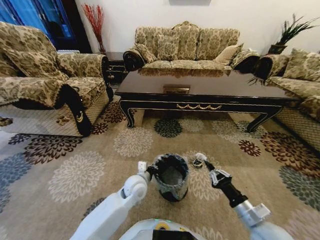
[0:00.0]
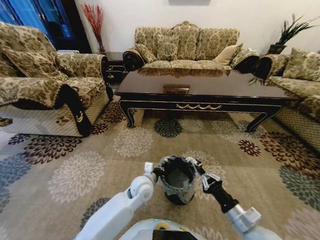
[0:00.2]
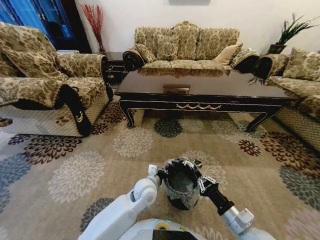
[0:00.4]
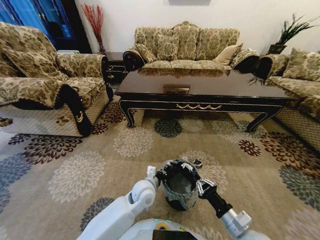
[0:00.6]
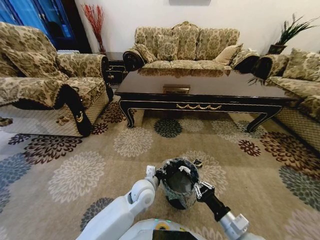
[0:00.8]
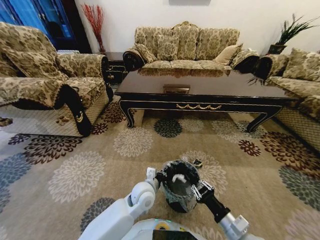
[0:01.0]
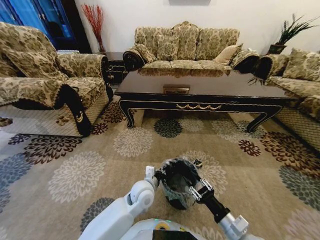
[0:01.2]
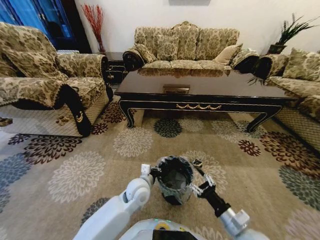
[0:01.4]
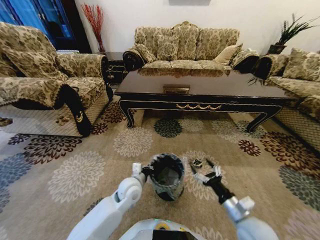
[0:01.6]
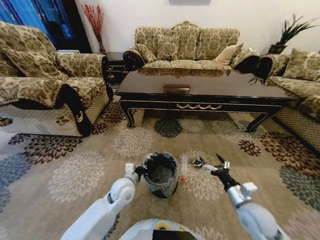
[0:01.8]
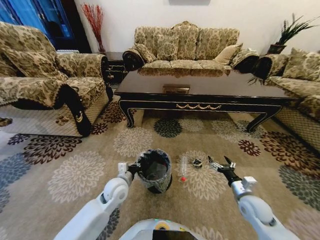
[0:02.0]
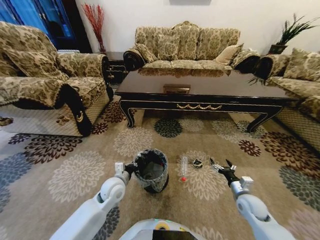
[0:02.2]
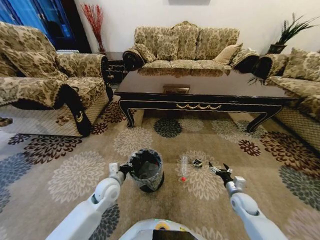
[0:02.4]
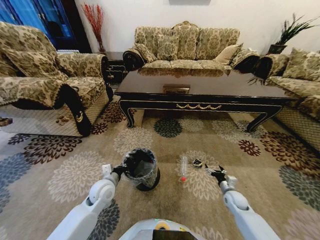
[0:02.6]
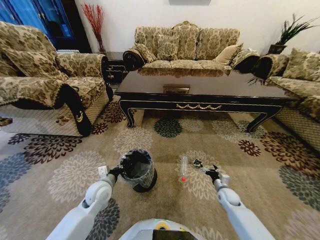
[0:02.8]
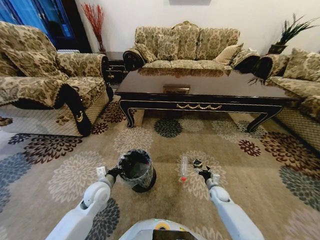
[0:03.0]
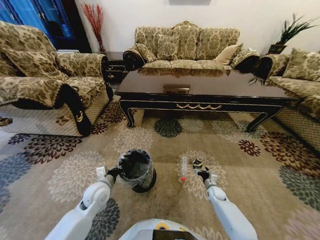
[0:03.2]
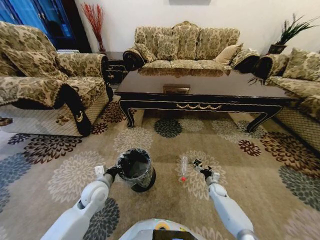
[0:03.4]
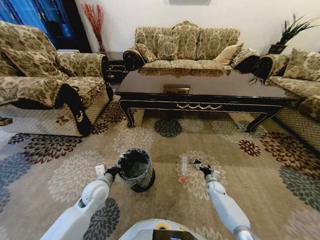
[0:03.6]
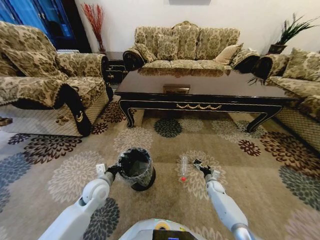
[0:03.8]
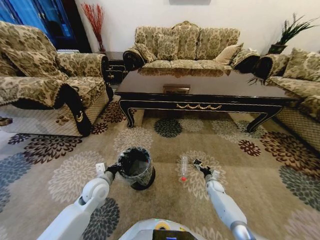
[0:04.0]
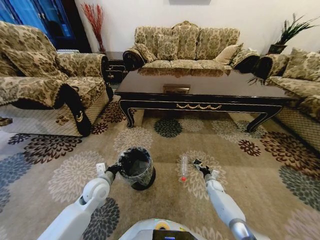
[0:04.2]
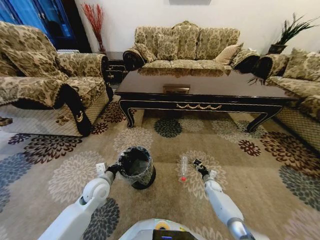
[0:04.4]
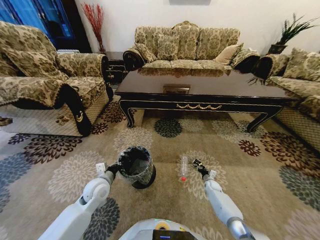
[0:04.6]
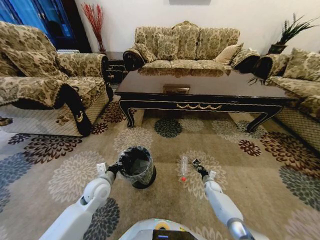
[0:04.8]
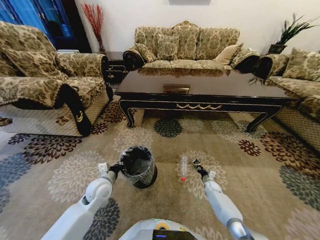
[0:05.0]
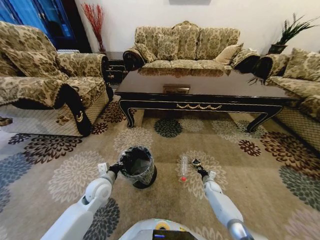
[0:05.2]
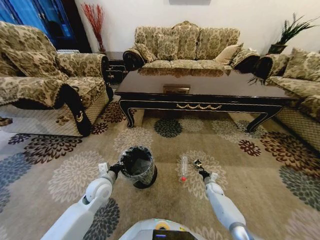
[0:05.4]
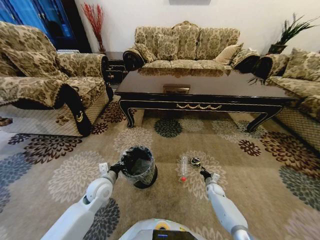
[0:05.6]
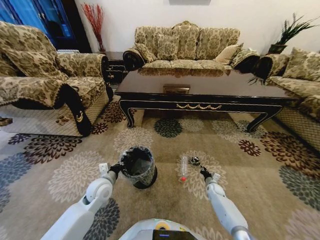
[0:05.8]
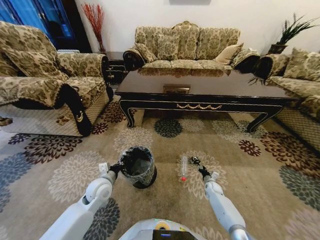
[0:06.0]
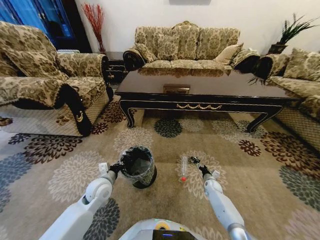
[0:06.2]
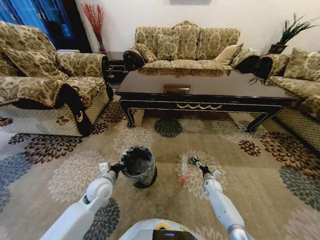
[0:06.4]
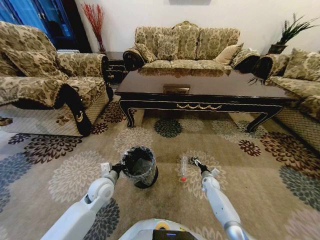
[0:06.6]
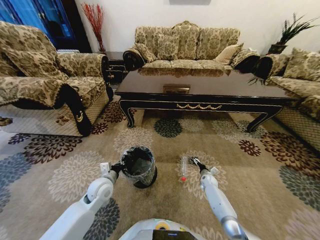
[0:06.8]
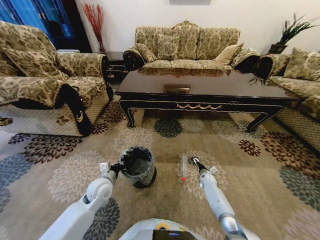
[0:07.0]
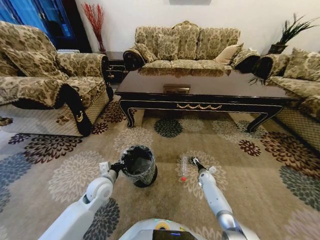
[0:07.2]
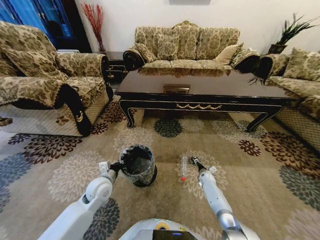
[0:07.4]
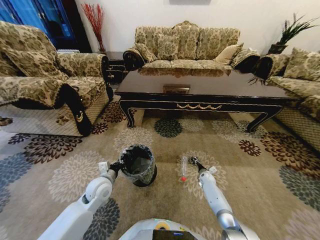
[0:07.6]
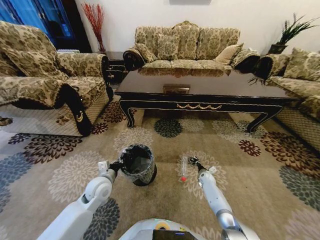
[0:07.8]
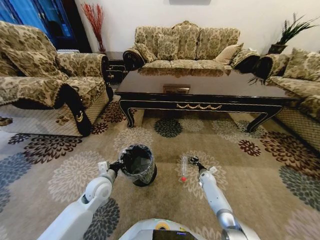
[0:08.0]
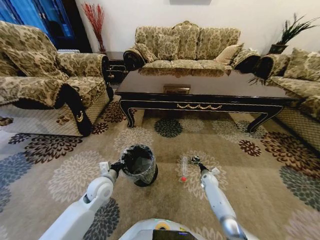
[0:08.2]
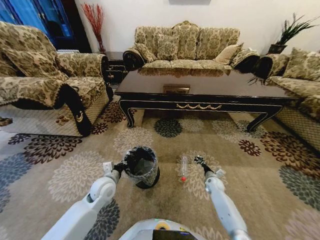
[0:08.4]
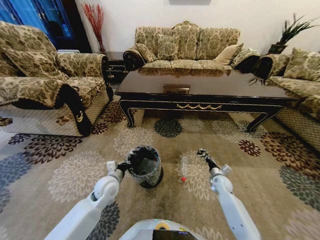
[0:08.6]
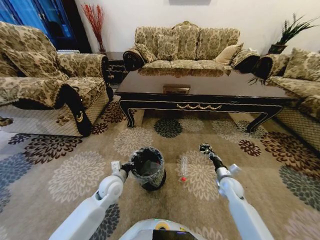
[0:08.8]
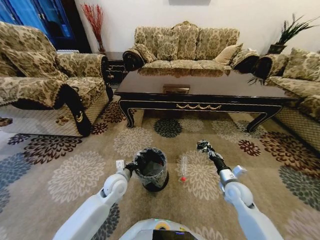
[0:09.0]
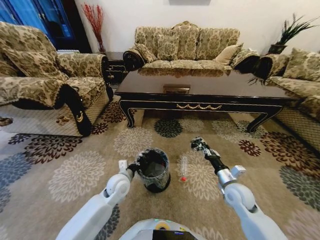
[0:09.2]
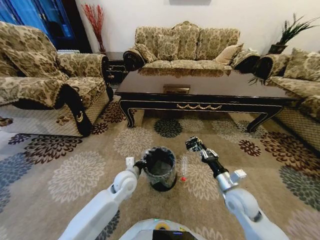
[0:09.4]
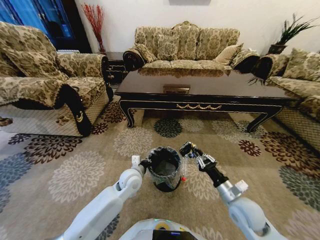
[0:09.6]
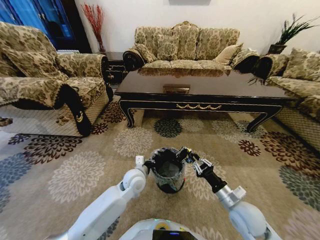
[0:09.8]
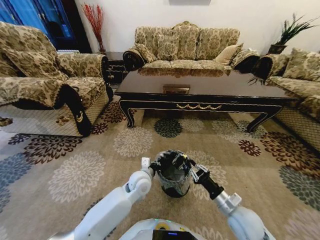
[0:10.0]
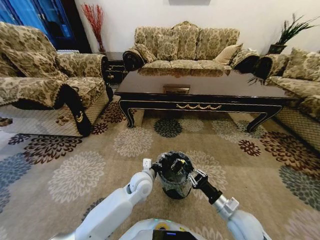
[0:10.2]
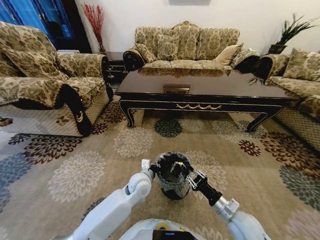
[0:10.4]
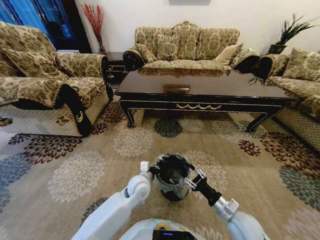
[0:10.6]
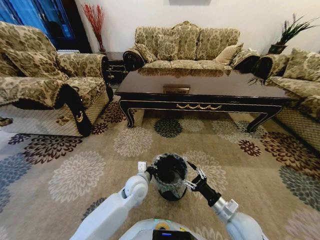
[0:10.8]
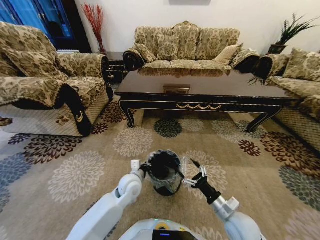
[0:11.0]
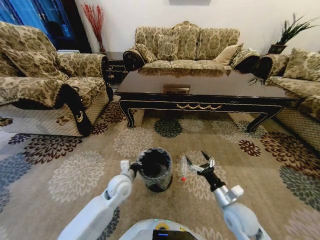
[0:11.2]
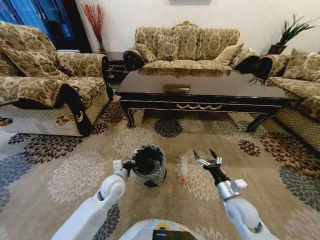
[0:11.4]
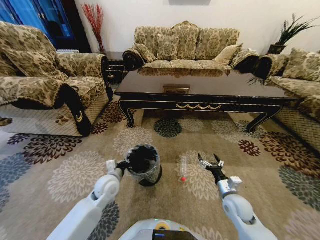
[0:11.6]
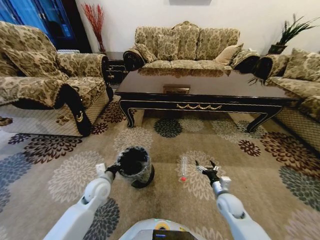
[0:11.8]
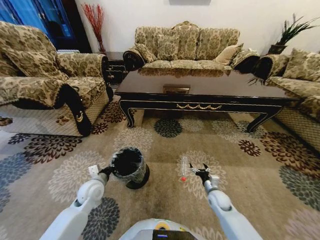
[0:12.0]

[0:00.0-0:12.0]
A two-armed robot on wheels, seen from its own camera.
Task of the whole recording: Move to the front of the table and pick up the trash from the floor, then place it into the trash bin.
0:00.0 to 0:01.6: The right gripper opens its fingers.
0:01.6 to 0:03.0: The left gripper goes approximately 15 cm to the left; the right gripper travels downward and forward by about 30 cm.
0:03.0 to 0:04.4: The right gripper is displaced forward and downward by about 10 cm, and closes its fingers.
0:04.4 to 0:06.0: The right gripper closes and opens again.
0:06.0 to 0:07.6: The right gripper heads forward, covering about 5 cm, and opens and closes again.
0:07.6 to 0:09.0: The left gripper moves to the right, approximately 5 cm, while the right gripper shifts some 25 cm upward and backward, and closes.
0:09.0 to 0:10.4: The right gripper shifts about 10 cm backward. The left gripper shifts some 10 cm to the right.
0:10.4 to 0:12.0: The left gripper goes about 20 cm to the left; the right gripper goes some 15 cm downward and forward, and opens up.

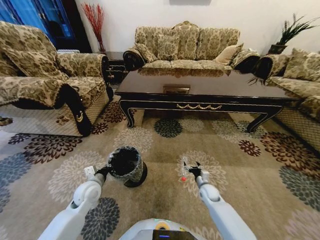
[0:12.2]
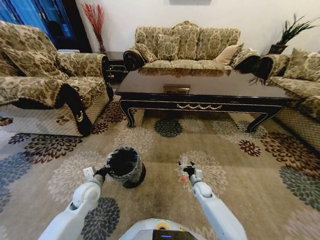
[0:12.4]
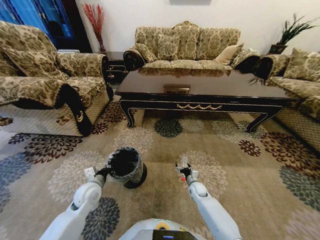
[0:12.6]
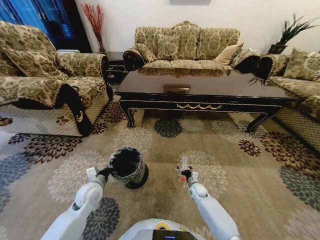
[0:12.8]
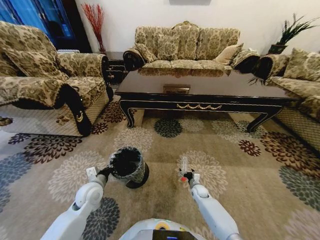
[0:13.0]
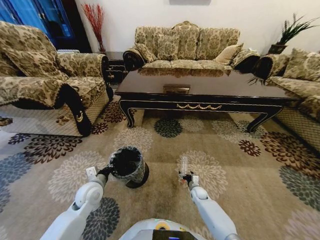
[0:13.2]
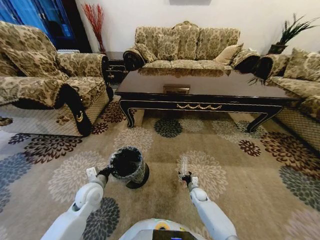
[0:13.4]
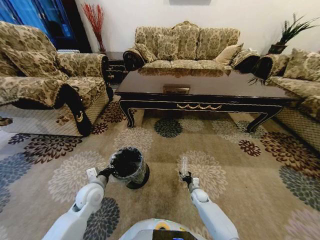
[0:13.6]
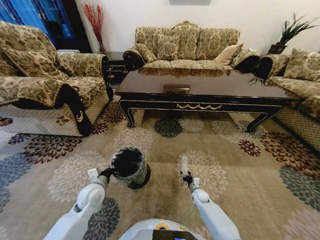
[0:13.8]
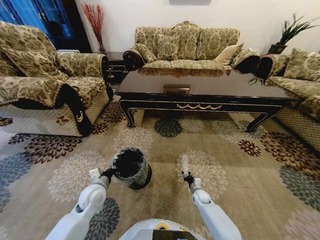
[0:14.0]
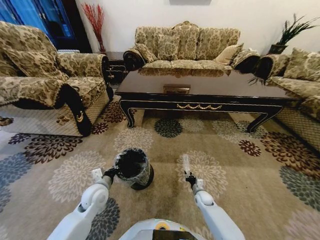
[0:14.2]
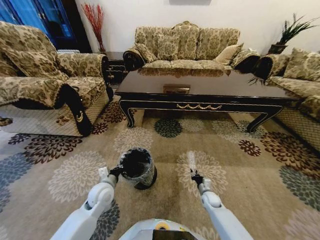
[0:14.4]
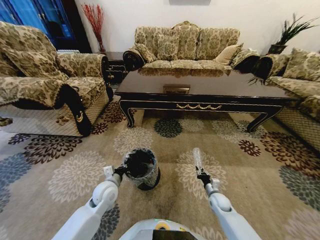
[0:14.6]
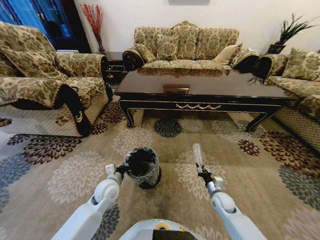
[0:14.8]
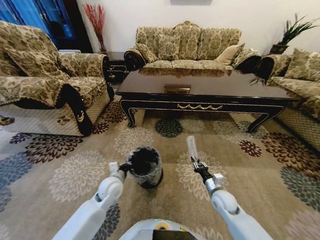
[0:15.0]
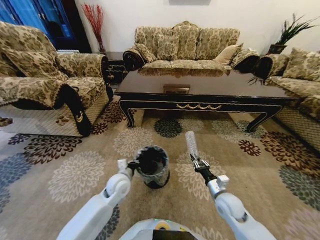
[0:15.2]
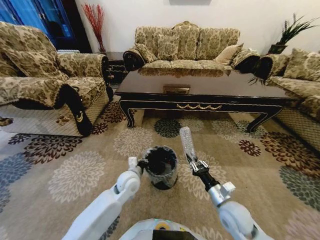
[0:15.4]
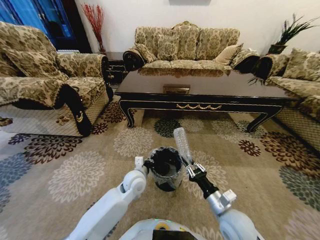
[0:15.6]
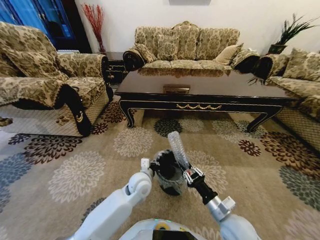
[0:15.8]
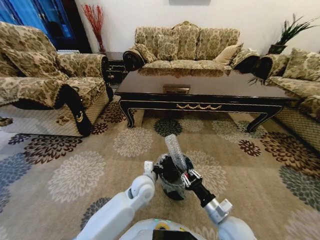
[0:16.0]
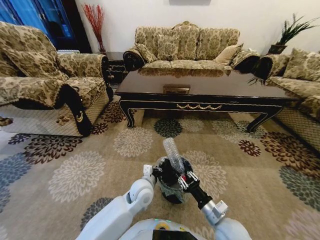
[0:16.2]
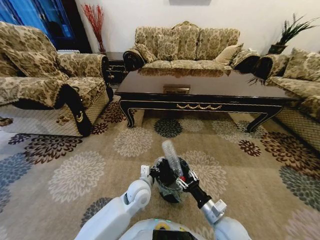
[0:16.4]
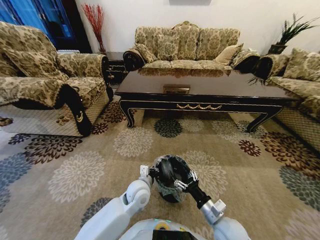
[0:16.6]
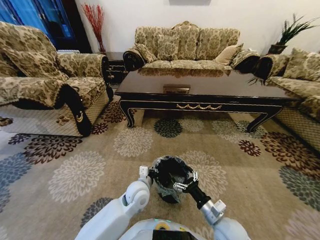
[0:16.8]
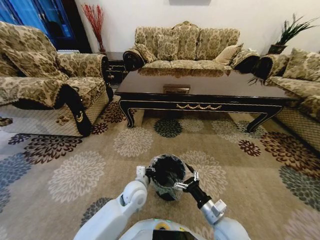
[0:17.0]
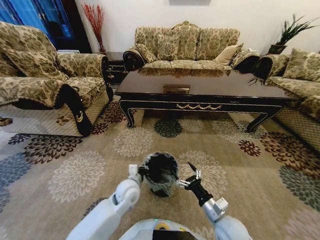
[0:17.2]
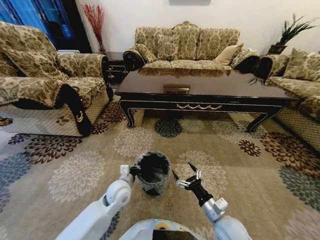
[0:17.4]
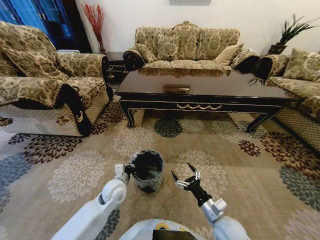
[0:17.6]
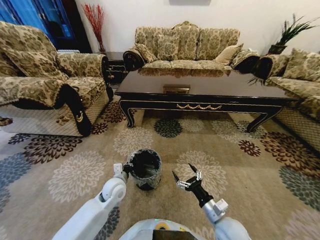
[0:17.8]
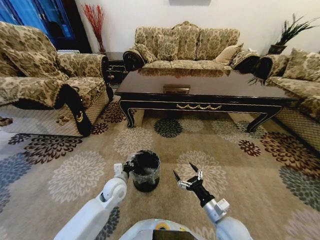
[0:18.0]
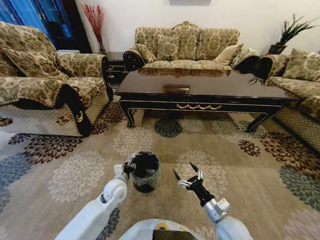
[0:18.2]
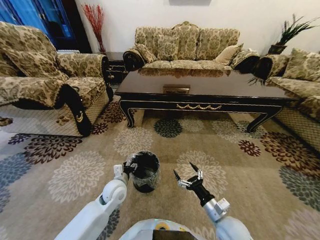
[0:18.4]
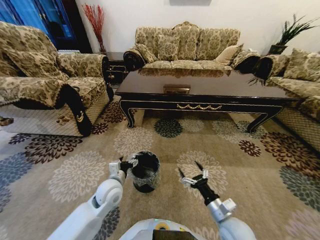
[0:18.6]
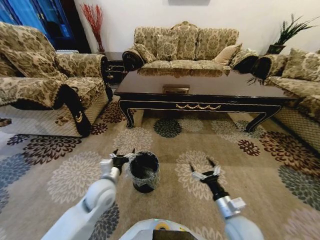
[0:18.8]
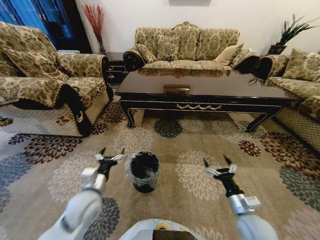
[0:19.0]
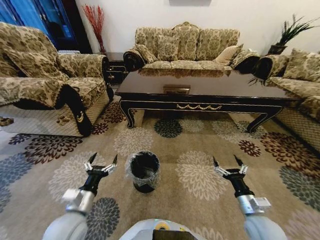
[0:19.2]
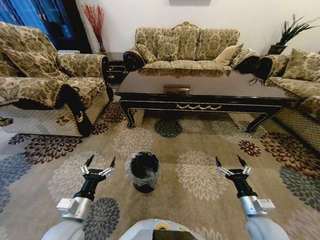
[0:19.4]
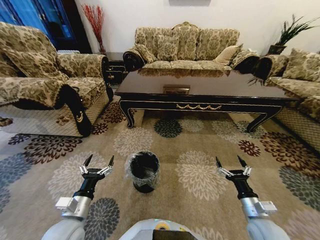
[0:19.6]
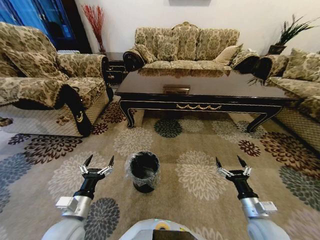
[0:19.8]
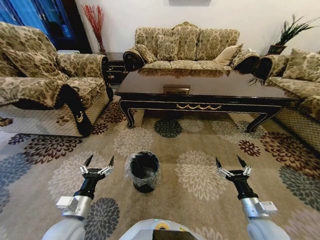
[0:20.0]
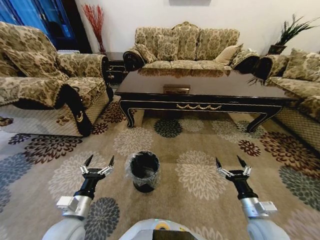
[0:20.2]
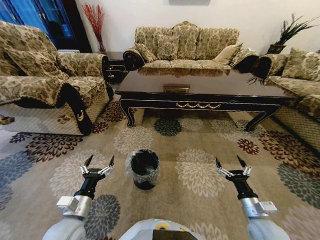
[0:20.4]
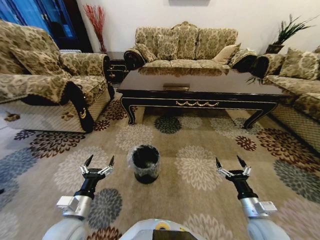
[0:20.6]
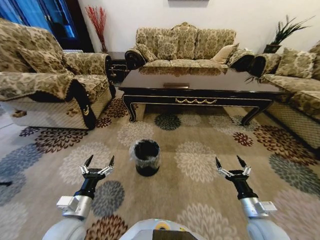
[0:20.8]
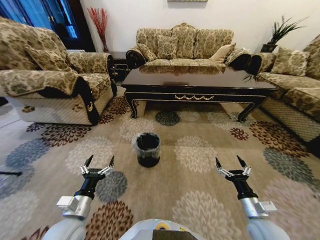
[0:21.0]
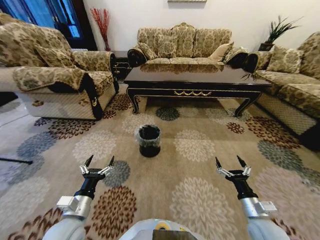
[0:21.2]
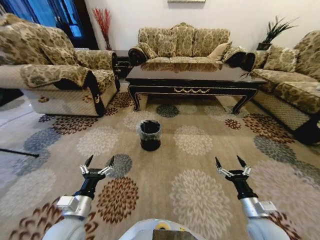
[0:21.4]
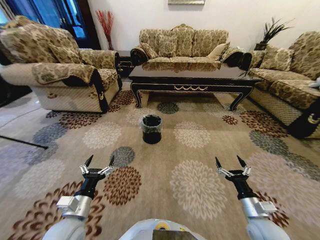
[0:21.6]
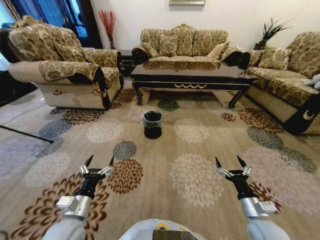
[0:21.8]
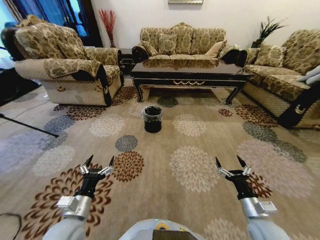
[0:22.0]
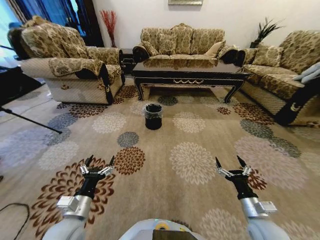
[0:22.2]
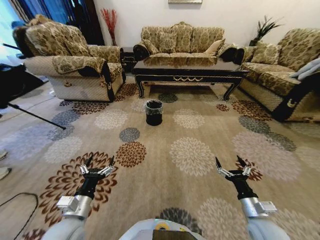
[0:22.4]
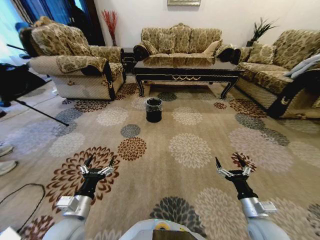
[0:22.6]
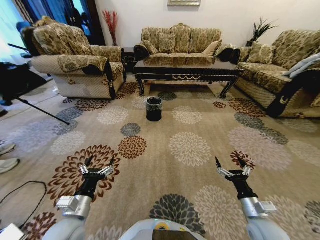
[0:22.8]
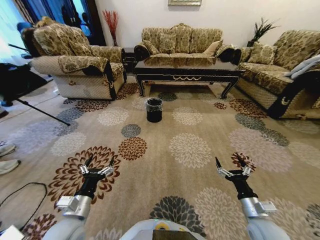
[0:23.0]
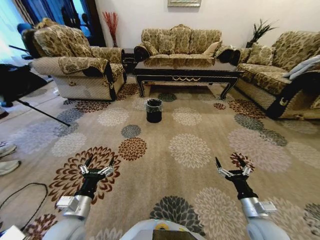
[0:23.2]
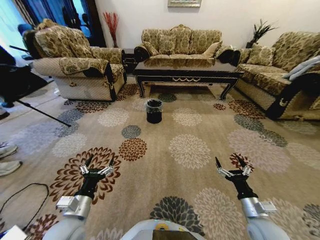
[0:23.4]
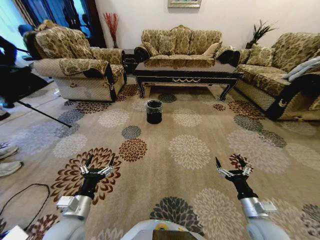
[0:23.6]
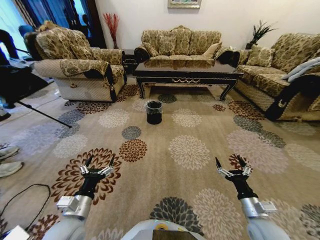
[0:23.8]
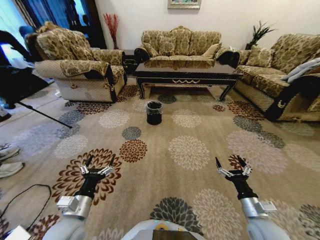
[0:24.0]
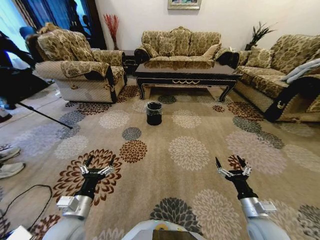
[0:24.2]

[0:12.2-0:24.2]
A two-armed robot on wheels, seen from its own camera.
Task of the whole recording: Move to the front of the table and pick up the trash from the floor, then place it into the trash bin.
0:12.2 to 0:13.8: The right gripper shifts about 10 cm downward, and closes up.
0:13.8 to 0:15.2: The right gripper moves upward and backward, some 25 cm, and closes its fingers, while the left gripper travels to the right by some 10 cm.
0:15.2 to 0:16.6: The left gripper moves to the right, roughly 10 cm, while the right gripper moves backward, about 10 cm, and opens.
0:16.6 to 0:18.2: The left gripper travels to the left by some 10 cm, and opens up.
0:18.2 to 0:19.8: The left gripper travels backward, to the left and upward by approximately 20 cm, and opens its fingers, while the right gripper goes roughly 10 cm to the right.
